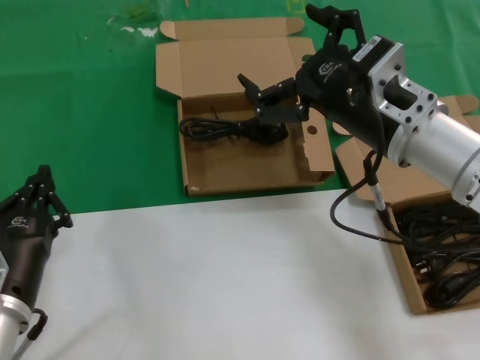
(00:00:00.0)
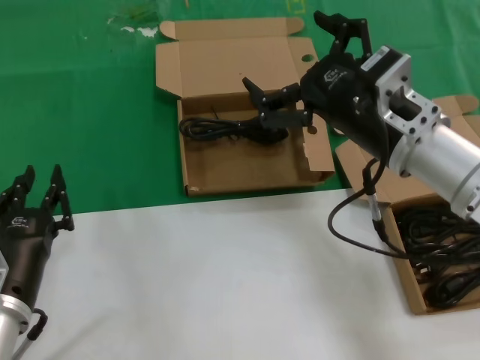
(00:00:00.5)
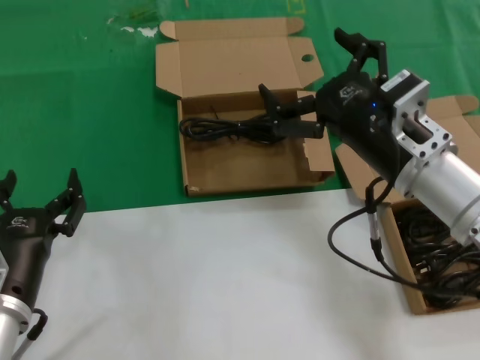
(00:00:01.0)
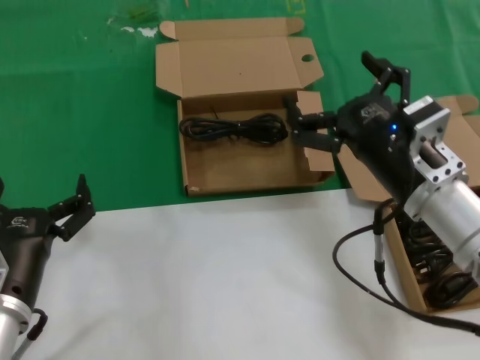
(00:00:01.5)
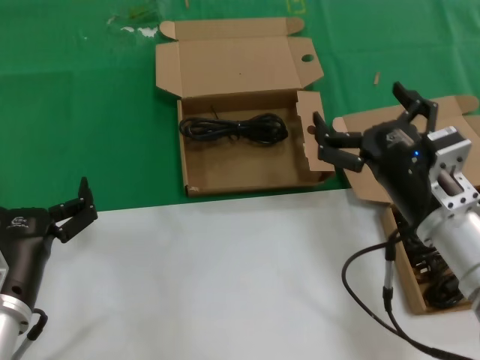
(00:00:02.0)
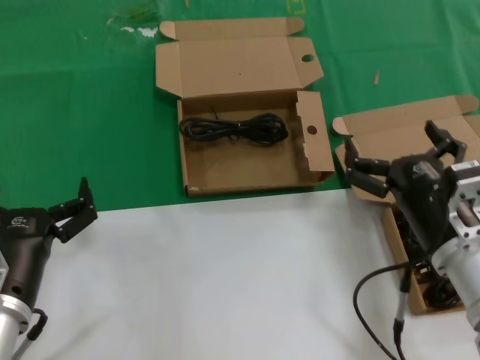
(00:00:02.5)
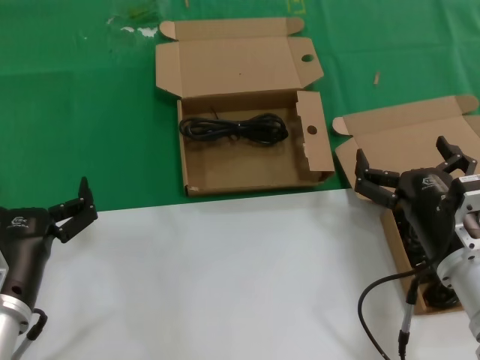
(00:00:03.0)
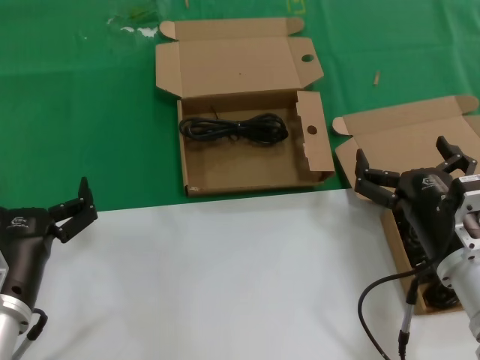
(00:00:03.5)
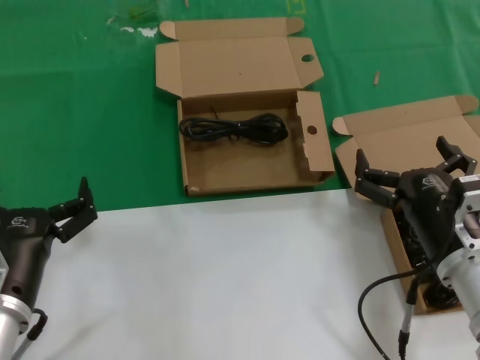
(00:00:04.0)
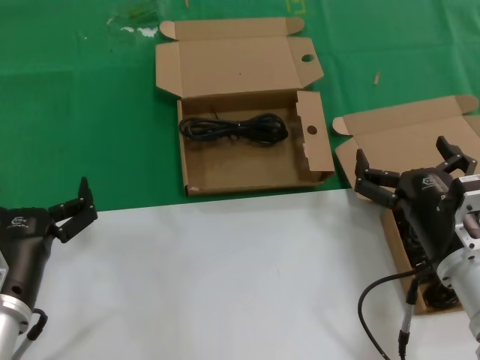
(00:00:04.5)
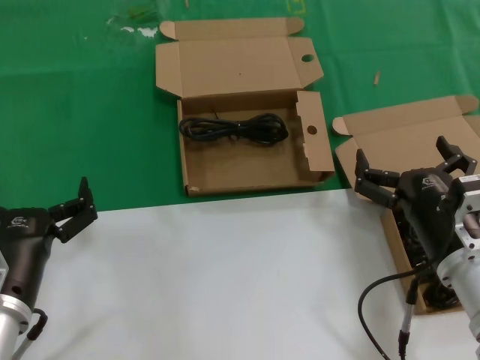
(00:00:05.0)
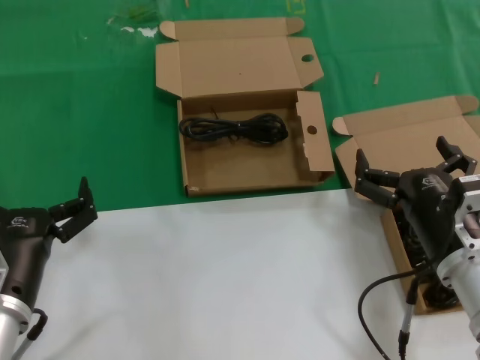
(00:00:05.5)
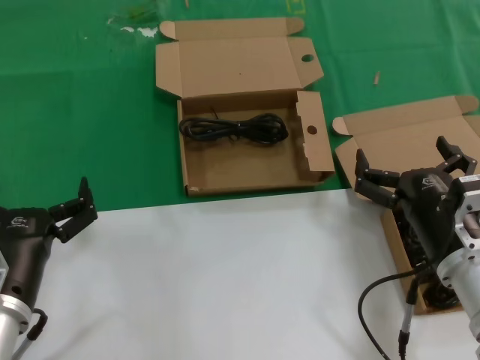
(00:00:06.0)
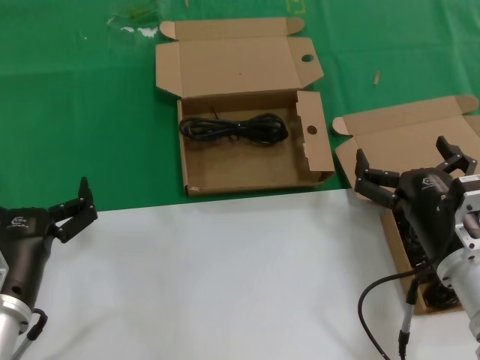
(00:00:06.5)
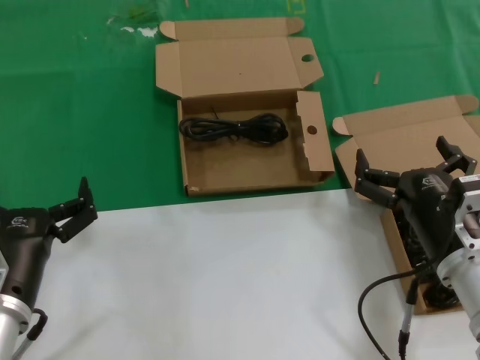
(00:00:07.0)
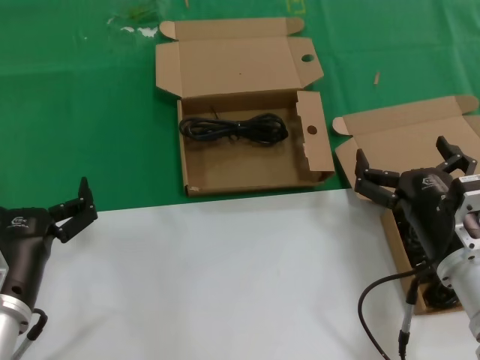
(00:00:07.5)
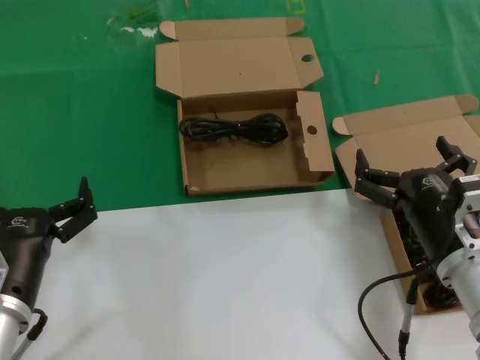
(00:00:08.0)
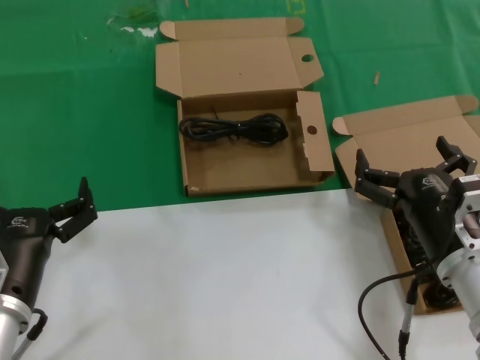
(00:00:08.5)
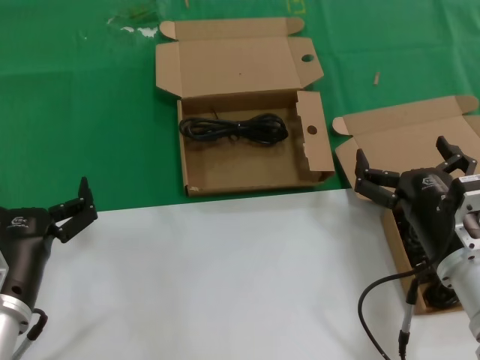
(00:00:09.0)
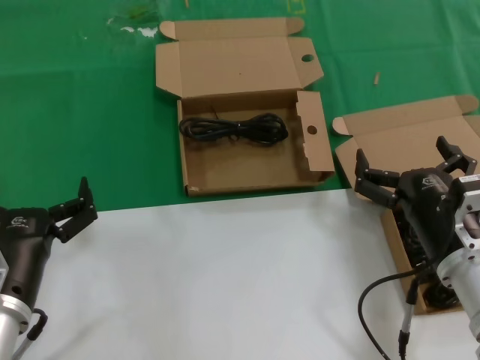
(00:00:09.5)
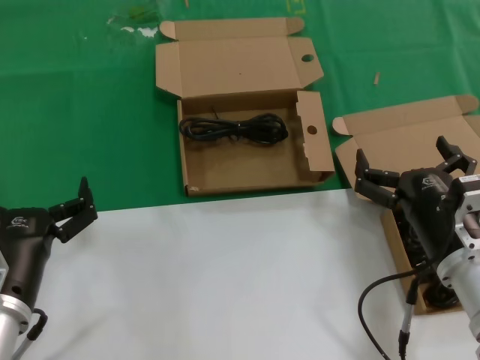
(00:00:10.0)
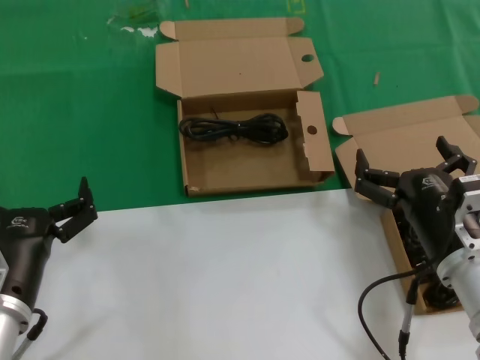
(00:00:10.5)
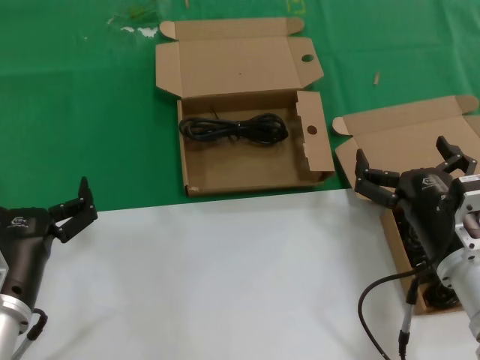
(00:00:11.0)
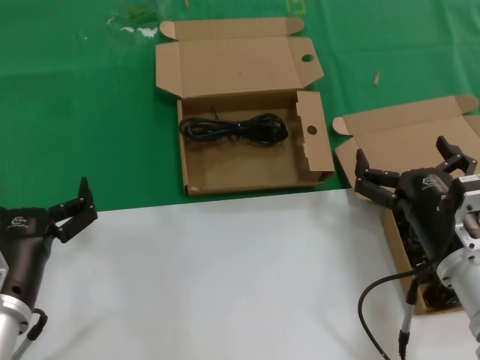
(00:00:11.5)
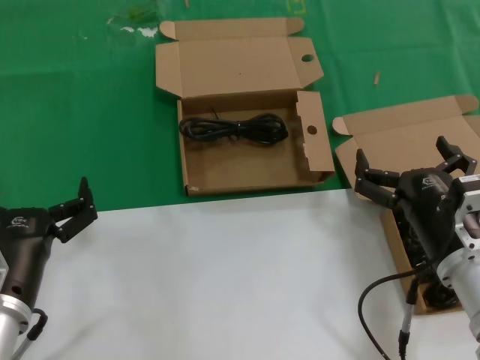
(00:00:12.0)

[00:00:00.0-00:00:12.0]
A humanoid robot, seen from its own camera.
Task of the whole recording: take the parts from the box containing them and put them into an empty box.
00:00:00.0 to 00:00:02.0: The right hand moves downward, roughly 10 cm.
00:00:02.0 to 00:00:04.0: The right hand changes place by about 5 cm.
00:00:04.0 to 00:00:12.0: Neither hand changes place.
